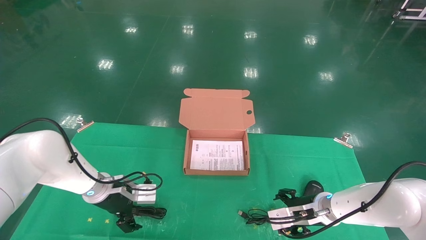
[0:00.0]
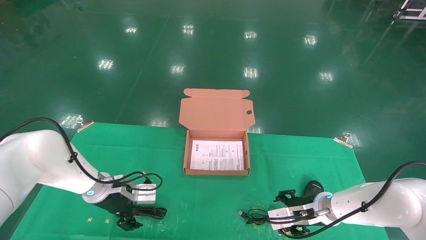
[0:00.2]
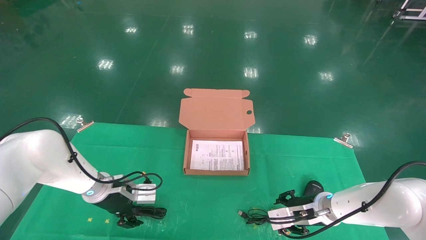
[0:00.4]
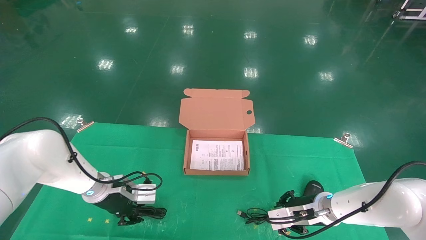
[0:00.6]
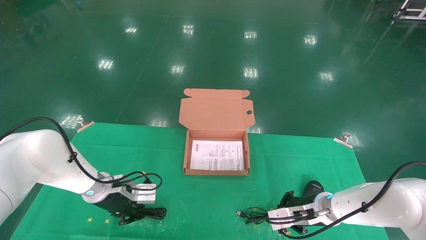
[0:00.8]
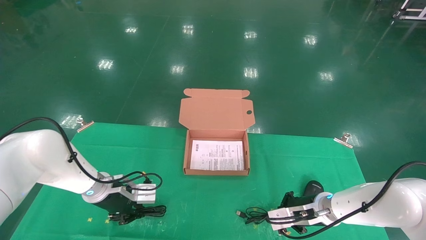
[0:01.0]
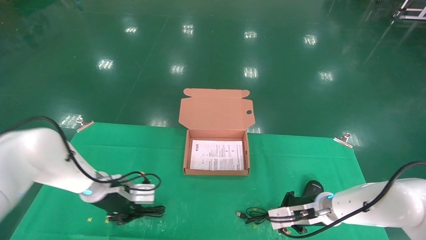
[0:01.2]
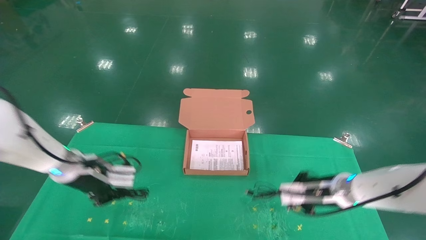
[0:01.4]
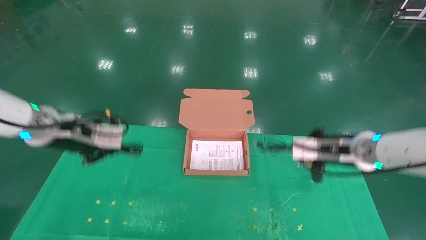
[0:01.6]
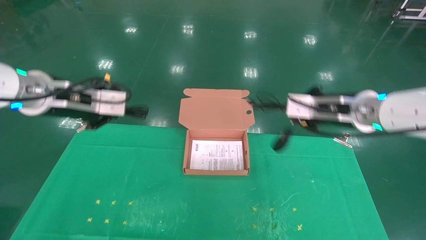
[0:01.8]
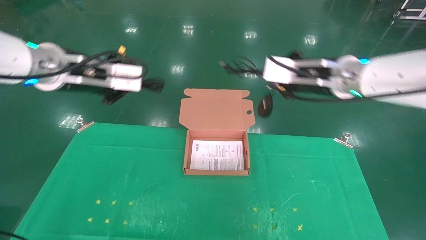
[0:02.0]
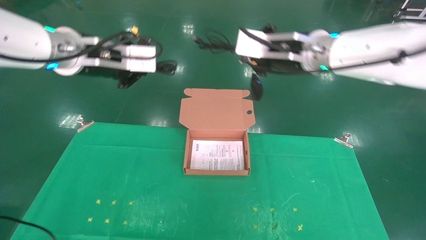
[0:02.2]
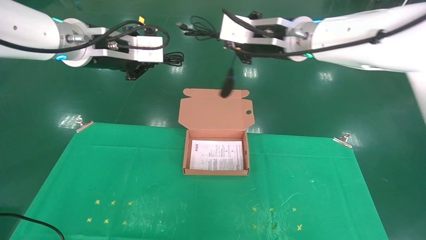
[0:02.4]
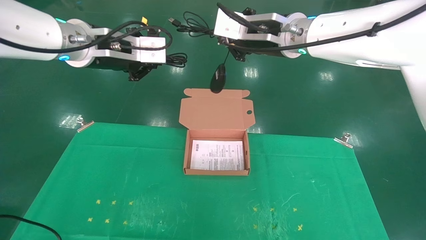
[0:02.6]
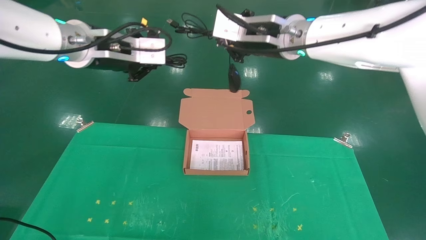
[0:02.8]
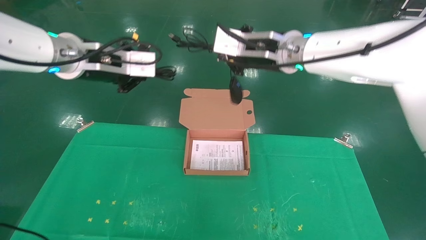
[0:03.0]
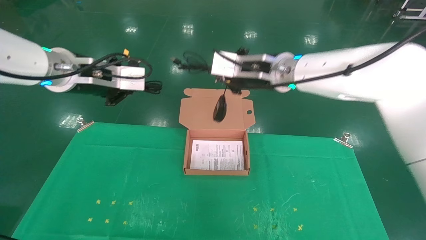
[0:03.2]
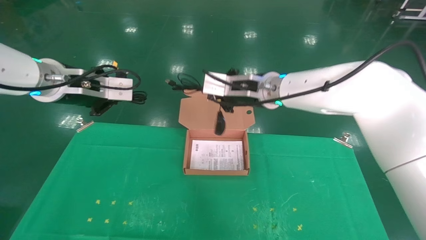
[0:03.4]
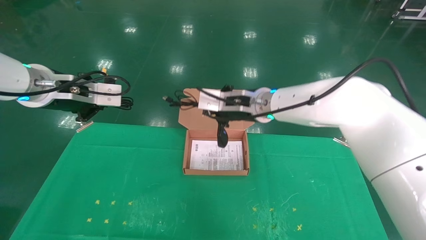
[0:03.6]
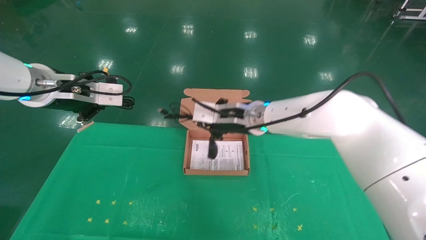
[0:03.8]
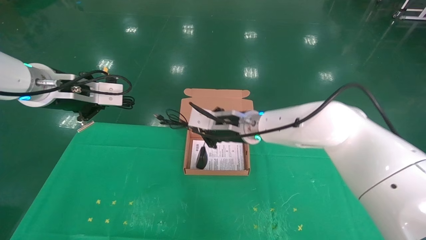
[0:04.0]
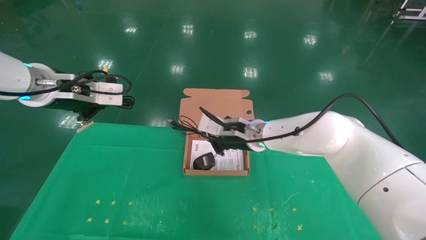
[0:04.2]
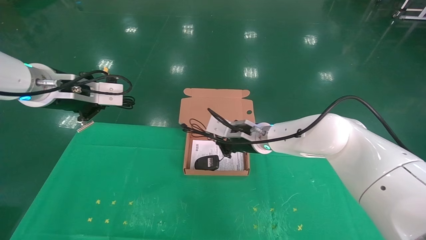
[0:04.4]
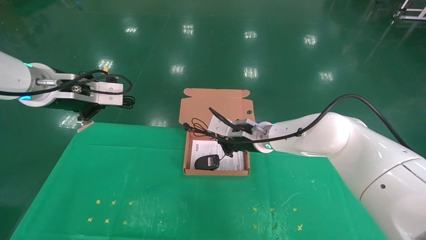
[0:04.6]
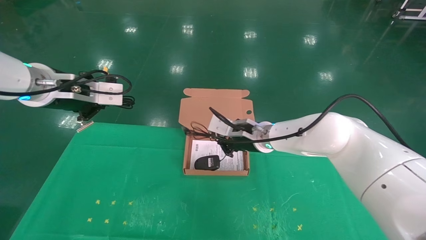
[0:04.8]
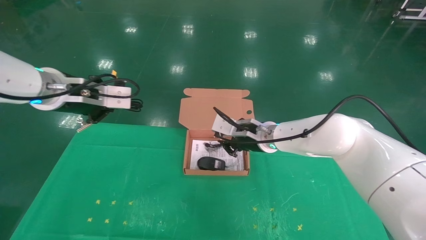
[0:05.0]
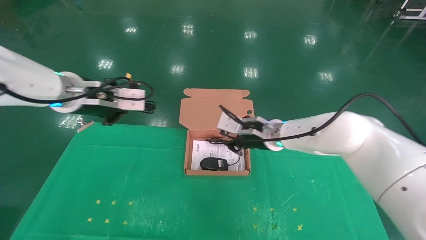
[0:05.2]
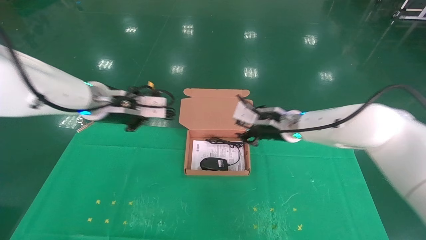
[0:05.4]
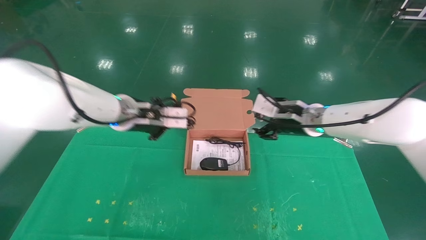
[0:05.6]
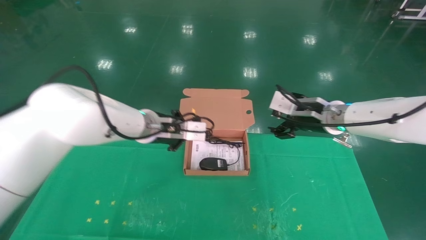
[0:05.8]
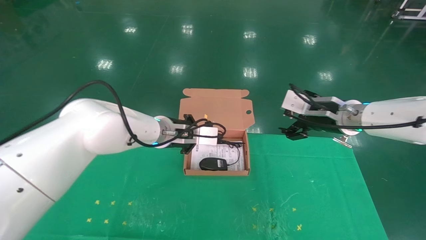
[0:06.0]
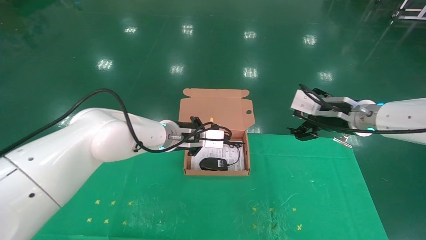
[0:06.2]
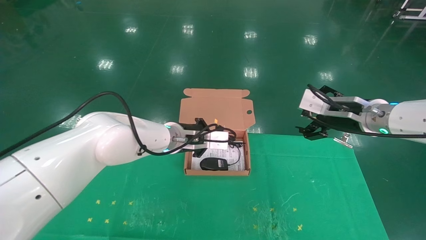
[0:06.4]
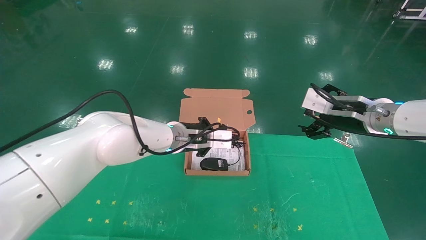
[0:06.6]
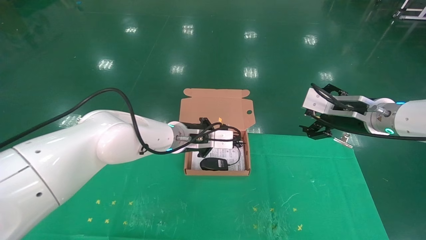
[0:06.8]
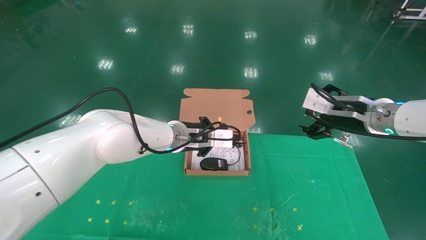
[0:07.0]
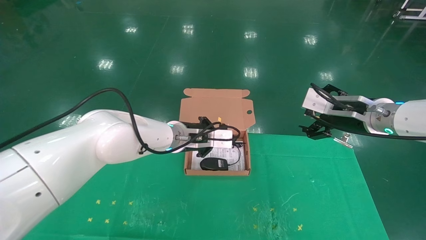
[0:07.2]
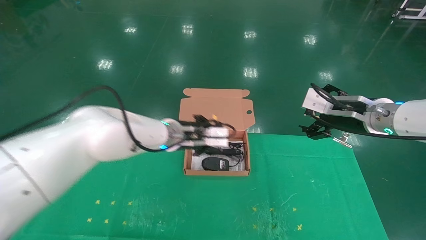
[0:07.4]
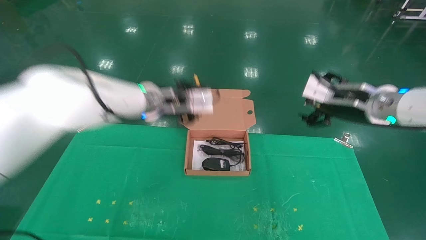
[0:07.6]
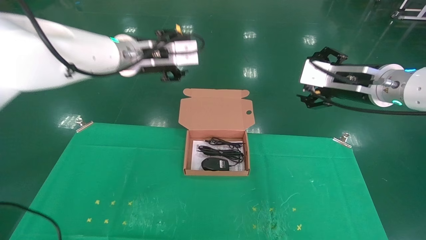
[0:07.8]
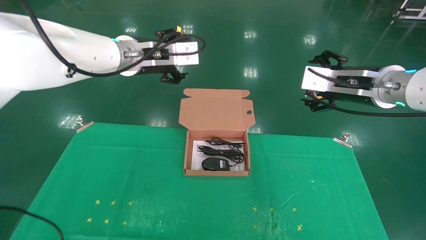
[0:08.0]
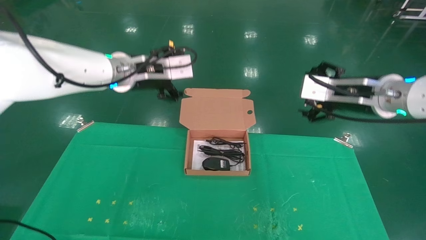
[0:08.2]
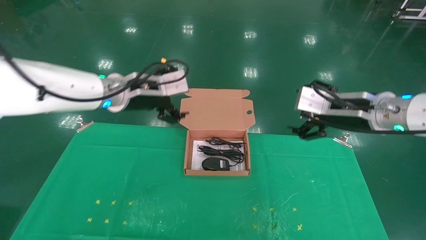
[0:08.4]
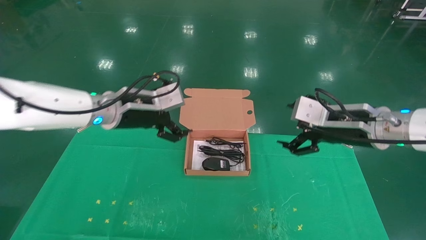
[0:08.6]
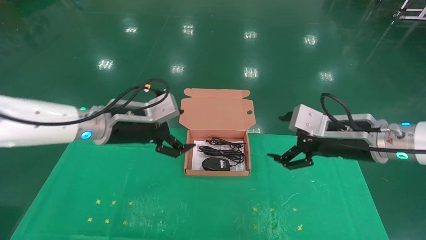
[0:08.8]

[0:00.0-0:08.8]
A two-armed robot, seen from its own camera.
Task of the whole recording: grasp data cable left put into box grasp mouse right put into box.
Step, 0:01.2 to 0:07.0: Place the mouse and power cord into the box.
0:00.0 to 0:01.4: The grippers both shift upward by about 10 cm. The right gripper closes. The left gripper closes.
0:01.4 to 0:03.0: The right gripper goes about 30 cm upward and to the left; the left gripper goes roughly 20 cm upward.
0:03.0 to 0:04.4: The right gripper is displaced downward by some 20 cm; the left gripper heads to the left, covering about 5 cm.
0:04.4 to 0:05.8: The right gripper heads to the right, covering approximately 15 cm, and opens its fingers. The left gripper moves to the right, downward and forward, roughly 20 cm.
0:05.8 to 0:07.4: The right gripper shifts roughly 5 cm to the right and backward.
0:07.4 to 0:08.8: The right gripper shifts about 5 cm backward; the left gripper travels to the left and backward by approximately 10 cm, moves roughly 10 cm upward and comes back, and opens.
